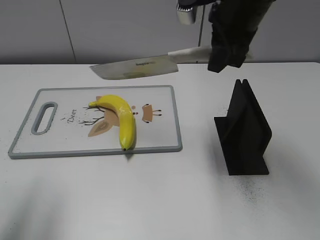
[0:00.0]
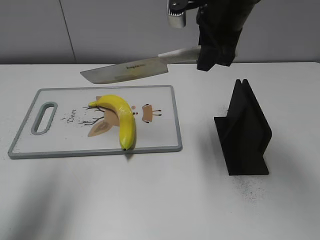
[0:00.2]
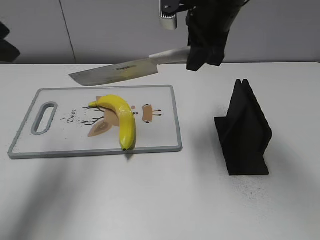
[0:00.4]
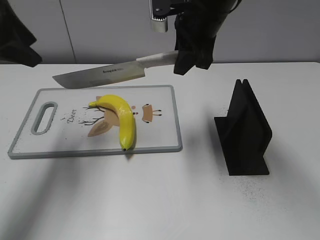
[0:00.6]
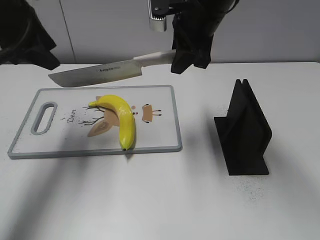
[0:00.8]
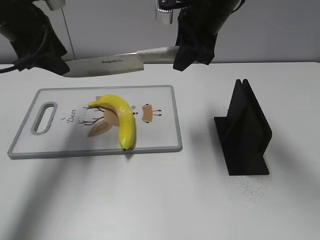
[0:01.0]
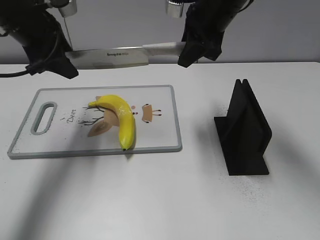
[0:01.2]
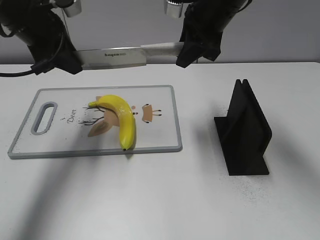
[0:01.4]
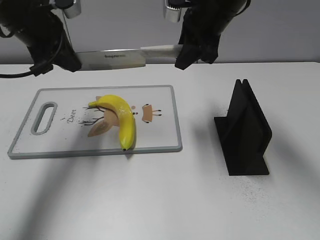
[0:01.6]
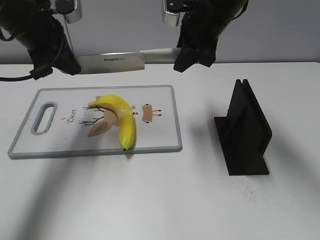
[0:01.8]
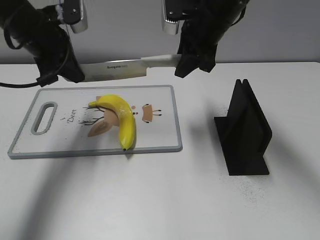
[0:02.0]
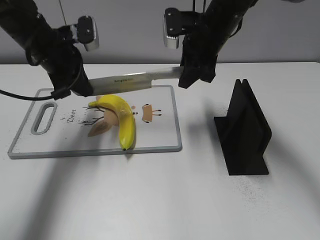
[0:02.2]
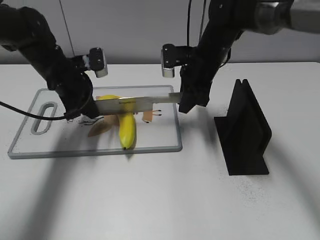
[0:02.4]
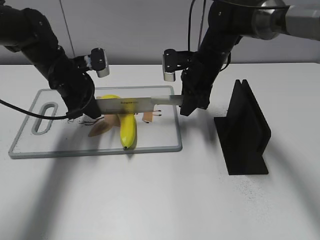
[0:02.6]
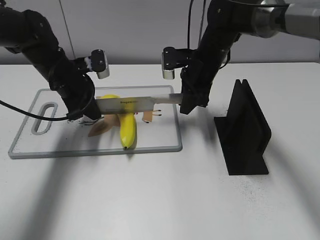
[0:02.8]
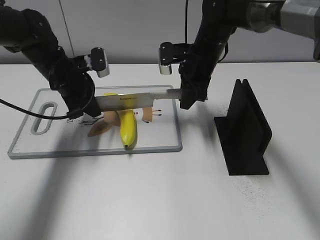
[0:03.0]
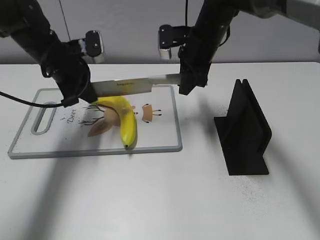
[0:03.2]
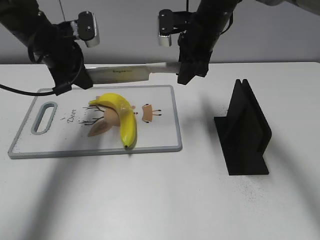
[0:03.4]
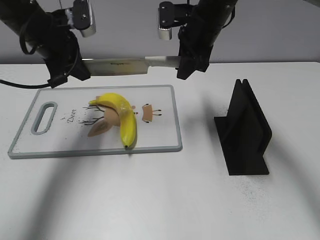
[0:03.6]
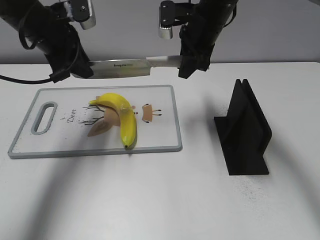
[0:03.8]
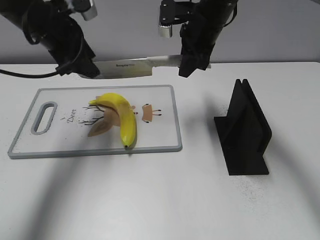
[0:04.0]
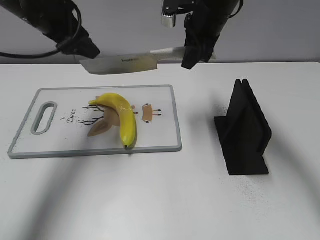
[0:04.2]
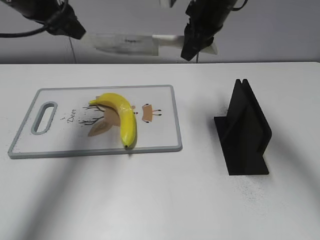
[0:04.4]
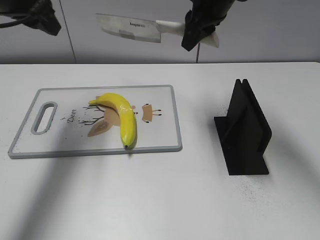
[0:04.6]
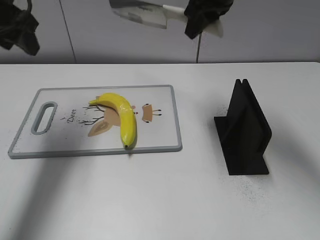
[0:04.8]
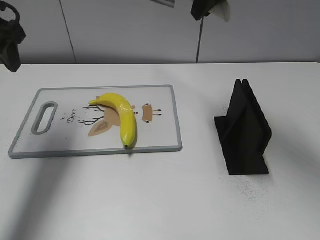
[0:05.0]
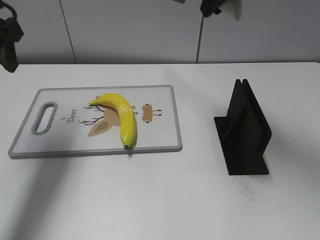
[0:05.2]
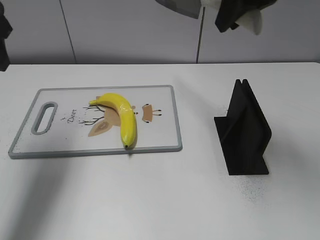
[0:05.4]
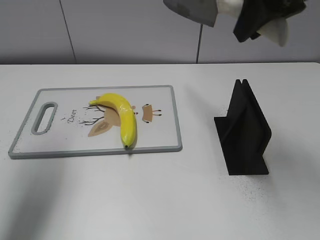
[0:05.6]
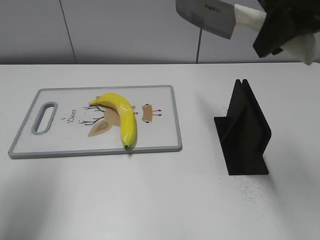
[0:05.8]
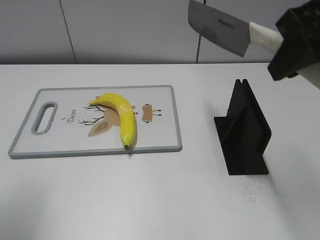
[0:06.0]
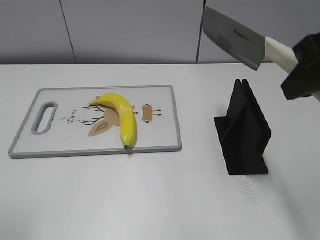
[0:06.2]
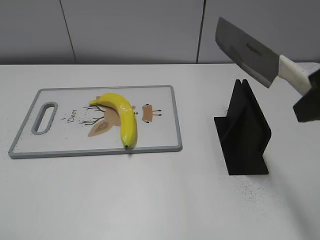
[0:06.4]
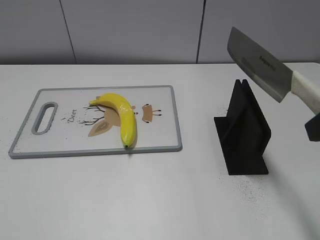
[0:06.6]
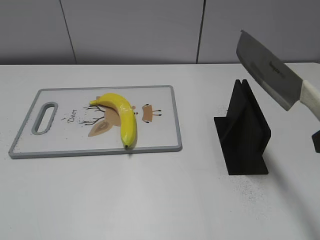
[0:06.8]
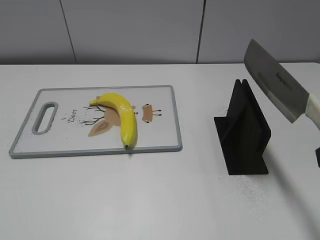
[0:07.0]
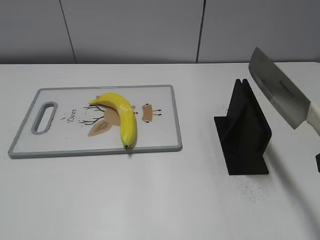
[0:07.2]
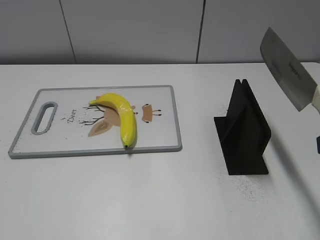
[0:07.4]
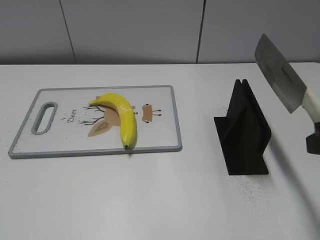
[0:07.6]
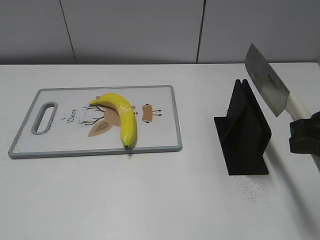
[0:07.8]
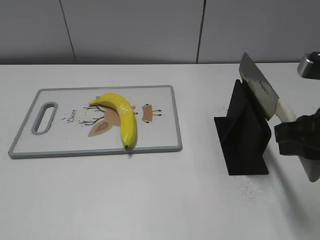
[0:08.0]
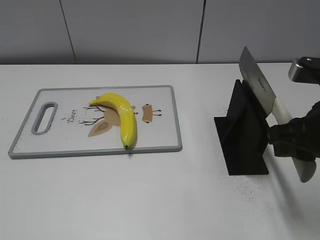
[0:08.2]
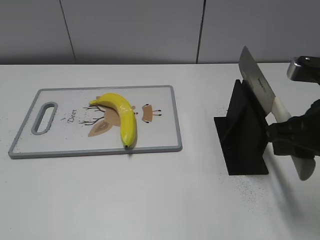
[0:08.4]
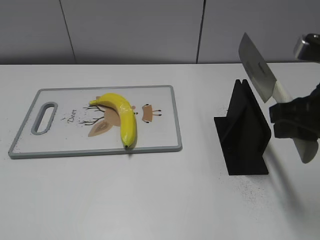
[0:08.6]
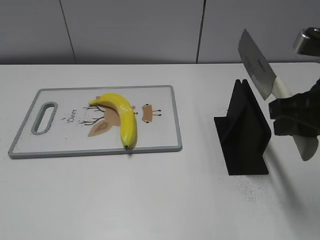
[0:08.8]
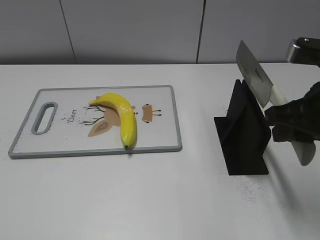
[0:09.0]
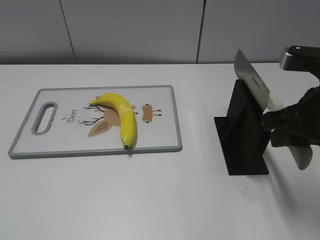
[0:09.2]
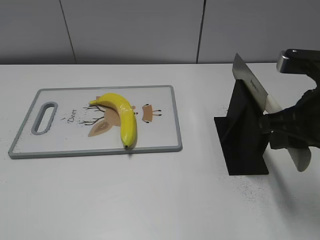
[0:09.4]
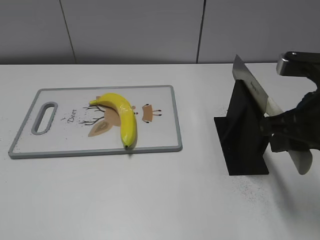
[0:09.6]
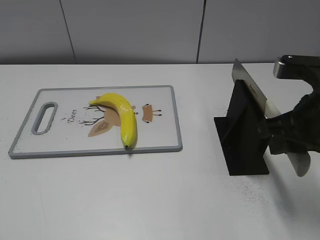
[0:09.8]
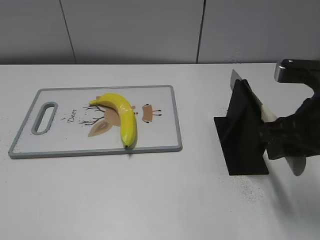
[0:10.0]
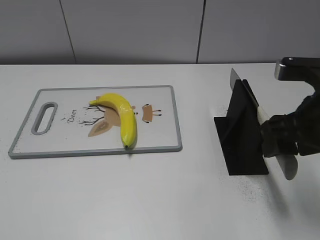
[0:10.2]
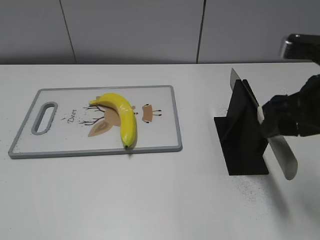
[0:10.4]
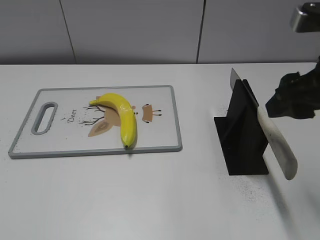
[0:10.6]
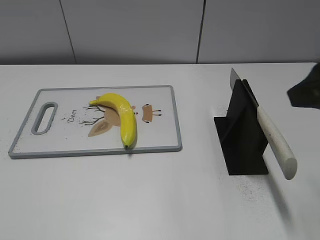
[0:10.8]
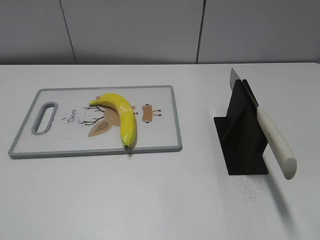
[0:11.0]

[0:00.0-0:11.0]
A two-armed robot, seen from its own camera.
Task of the whole recording: cut plastic banana.
Step, 0:00.0 to 0:03.6: Lift the knife with your right hand.
Step, 0:03.8 to 0:05.2: Cut the banana with your right hand.
Step, 0:05.4 to 0:06.6: Lift the knife with your right hand.
0:00.0 to 0:01.6: The left gripper heads forward, covering about 20 cm, and closes its fingers. Meanwhile the right gripper travels forward by approximately 5 cm.
0:01.6 to 0:03.2: Both grippers travel together downward, approximately 10 cm.
0:03.2 to 0:04.8: The right gripper goes some 10 cm upward; the left gripper heads upward and to the left, covering roughly 15 cm, and opens.
0:04.8 to 0:06.2: The right gripper goes approximately 25 cm backward and to the right; the left gripper heads backward, covering roughly 25 cm.
0:06.2 to 0:07.8: The right gripper travels downward by roughly 10 cm.
0:07.8 to 0:09.4: The right gripper moves about 5 cm.
0:09.4 to 0:11.0: The right gripper travels upward and backward by some 15 cm, and opens its fingers.

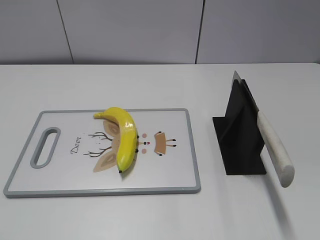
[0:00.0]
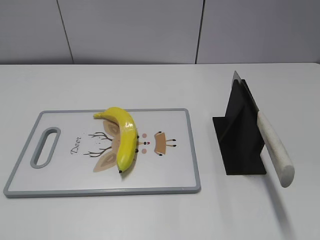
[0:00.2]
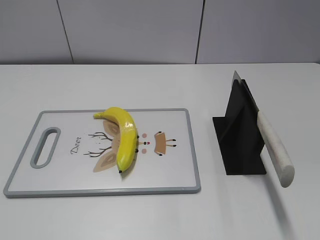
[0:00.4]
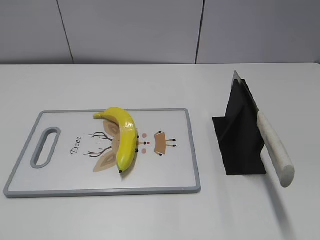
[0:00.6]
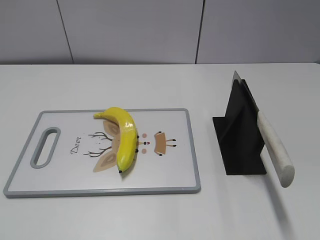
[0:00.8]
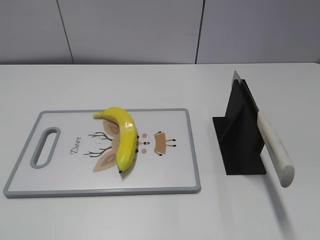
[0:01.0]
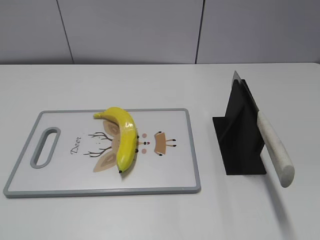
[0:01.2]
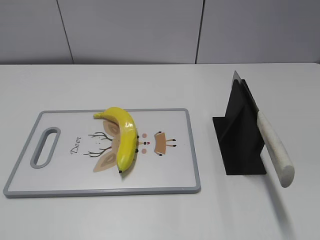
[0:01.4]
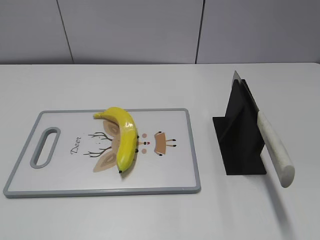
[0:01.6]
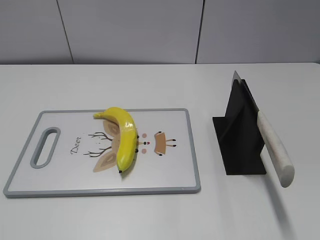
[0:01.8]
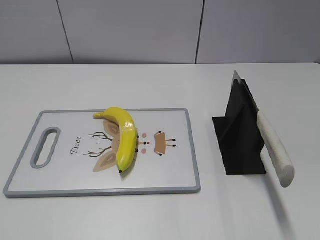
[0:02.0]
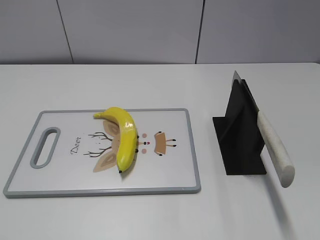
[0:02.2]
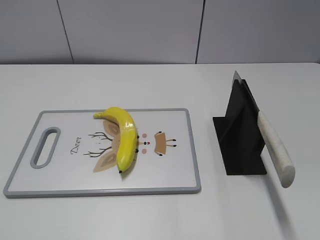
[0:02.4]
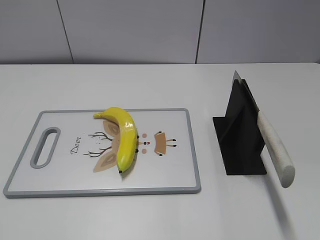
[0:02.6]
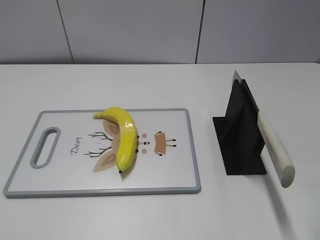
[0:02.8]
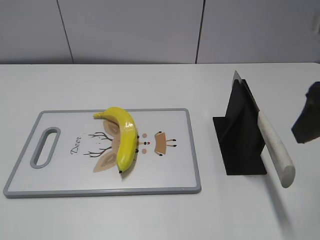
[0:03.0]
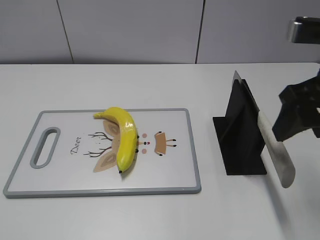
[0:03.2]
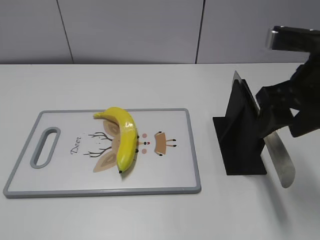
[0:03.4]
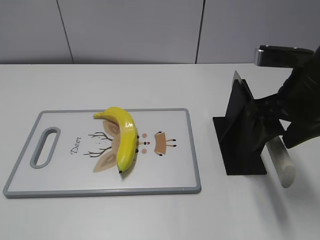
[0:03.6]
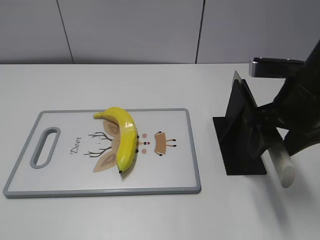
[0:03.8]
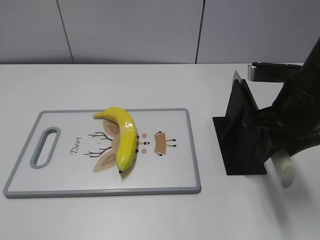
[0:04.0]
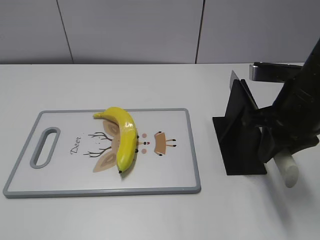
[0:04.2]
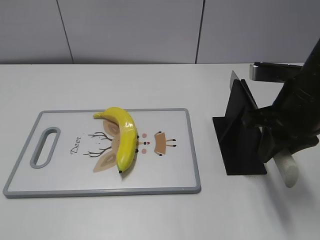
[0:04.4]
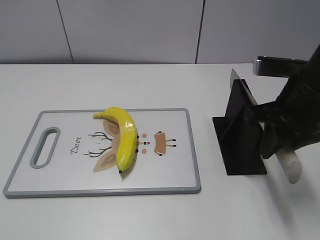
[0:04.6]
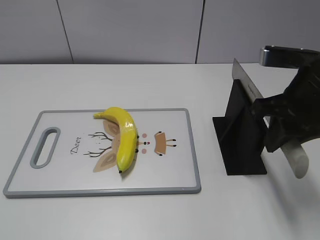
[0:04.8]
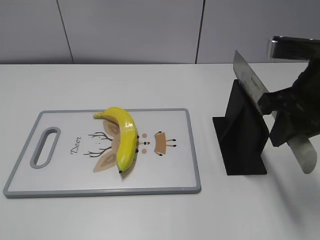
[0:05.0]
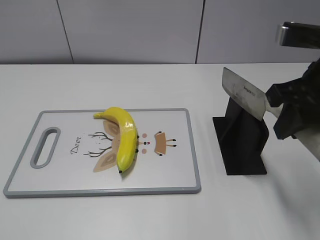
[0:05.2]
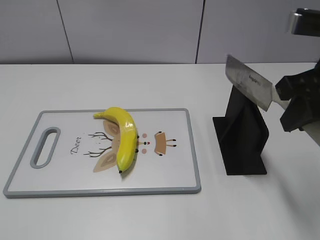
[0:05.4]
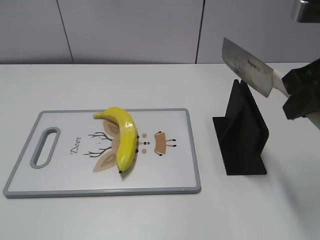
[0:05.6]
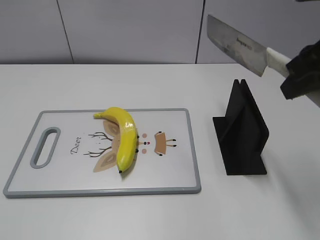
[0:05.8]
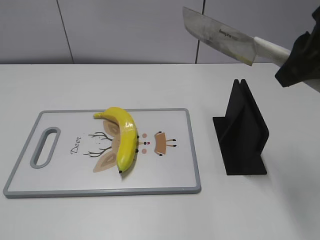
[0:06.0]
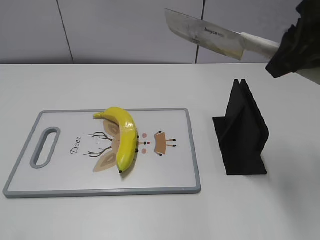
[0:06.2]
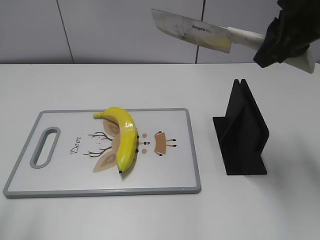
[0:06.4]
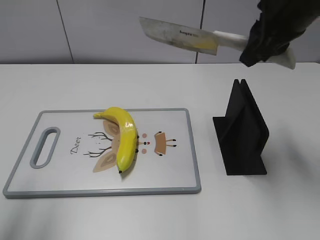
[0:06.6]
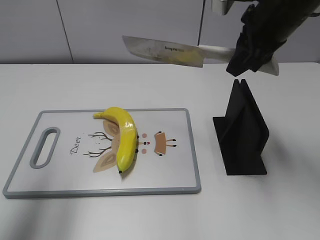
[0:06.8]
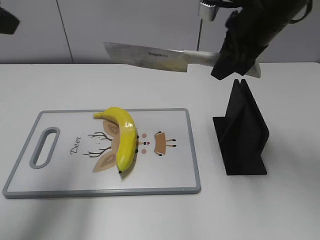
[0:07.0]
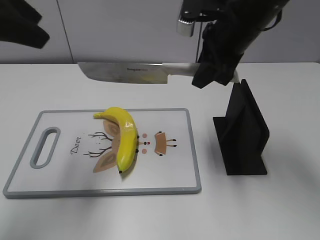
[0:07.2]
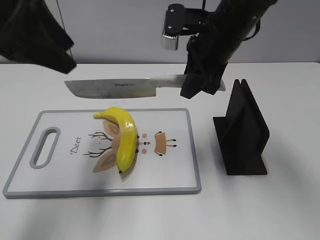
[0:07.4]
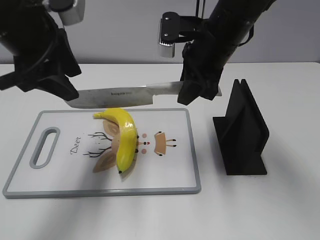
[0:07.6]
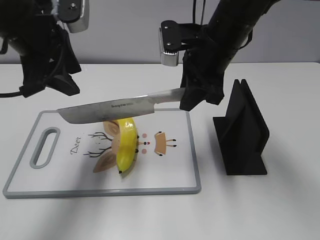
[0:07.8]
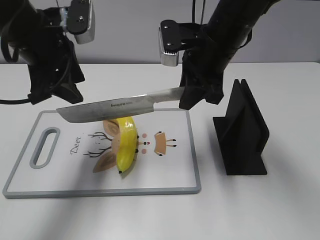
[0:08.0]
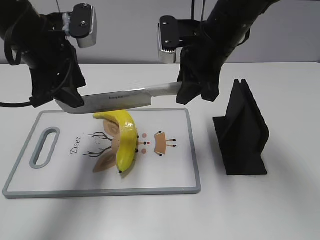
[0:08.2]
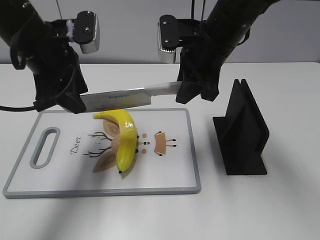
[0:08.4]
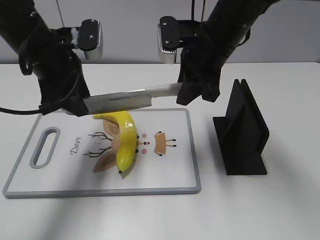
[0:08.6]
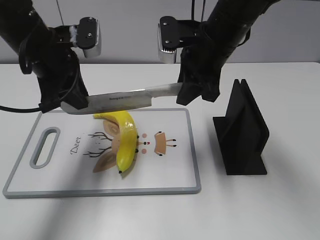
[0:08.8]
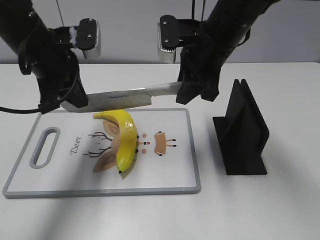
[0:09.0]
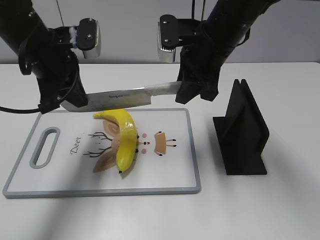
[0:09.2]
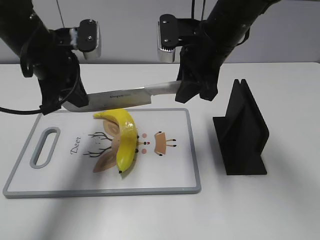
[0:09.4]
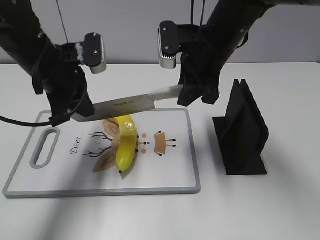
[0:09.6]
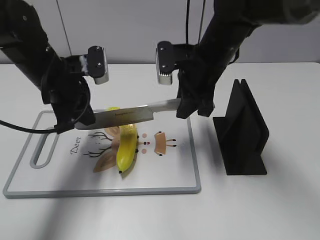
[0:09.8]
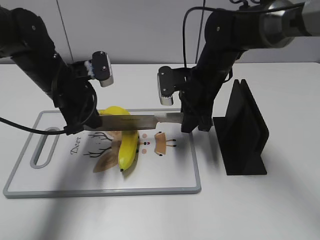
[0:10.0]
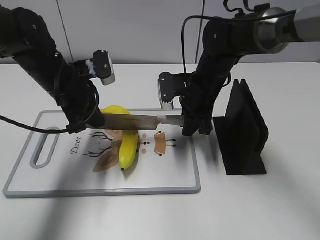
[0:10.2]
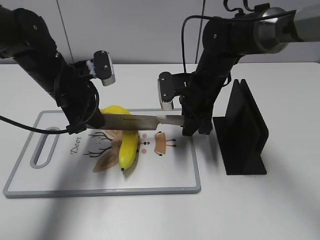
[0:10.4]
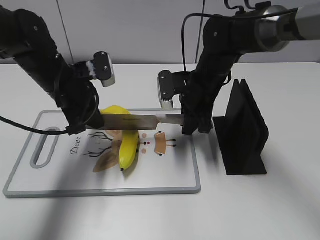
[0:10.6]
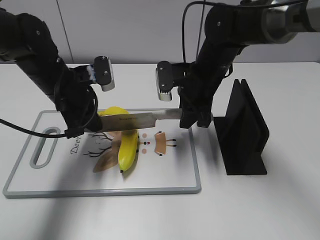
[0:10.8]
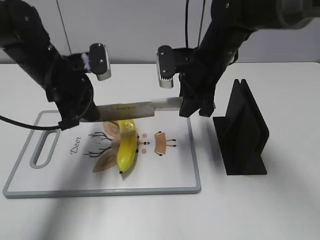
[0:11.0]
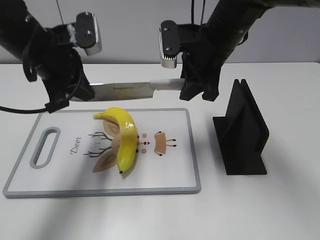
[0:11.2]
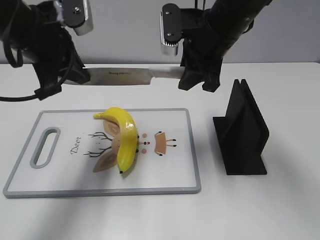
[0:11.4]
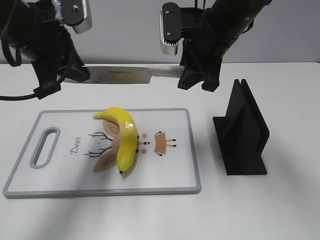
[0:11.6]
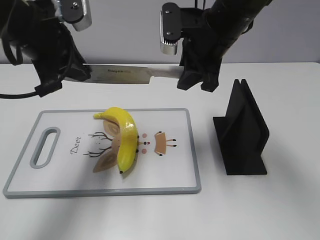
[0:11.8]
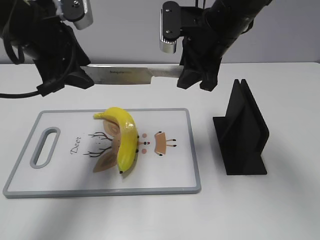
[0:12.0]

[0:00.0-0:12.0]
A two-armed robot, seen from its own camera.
Task of the whole recording: cut plastic banana.
Step, 0:00.0 to 0:05.2: Grab the knife handle with your right hand.
Step, 0:05.4 to 0:10.8: Lift the knife with your right hand.
0:01.6 to 0:03.0: The right gripper goes roughly 20 cm forward and to the left.
0:03.0 to 0:04.4: The right gripper moves downward and forward, roughly 10 cm, and closes.
0:04.4 to 0:06.0: The right gripper shifts about 10 cm upward.
0:06.0 to 0:07.6: The right gripper moves to the left, forward and downward, some 20 cm. Meanwhile the left gripper shifts approximately 30 cm forward and to the right.
0:07.6 to 0:09.0: The left gripper is displaced downward by some 5 cm, and closes its fingers.
0:09.0 to 0:10.4: The right gripper moves downward, approximately 10 cm, while the left gripper is displaced downward by roughly 10 cm.
0:10.4 to 0:12.0: The grippers both shift upward by approximately 10 cm. The left gripper opens its fingers.
